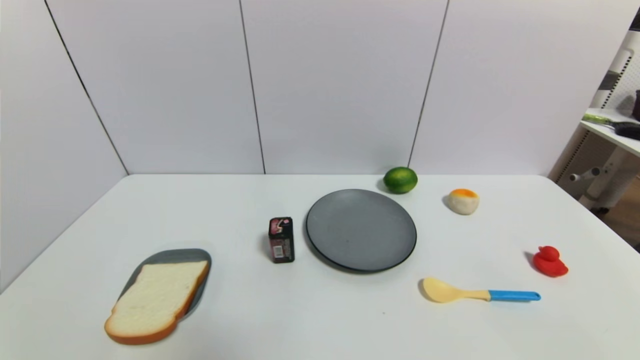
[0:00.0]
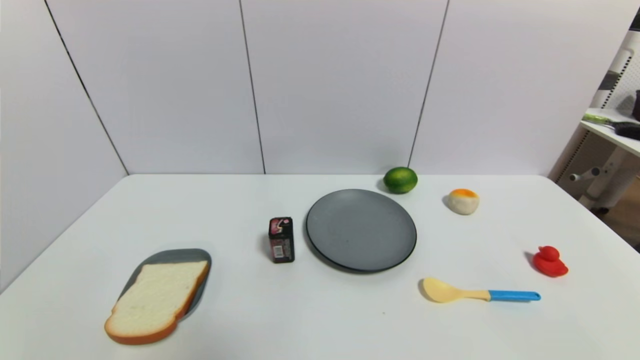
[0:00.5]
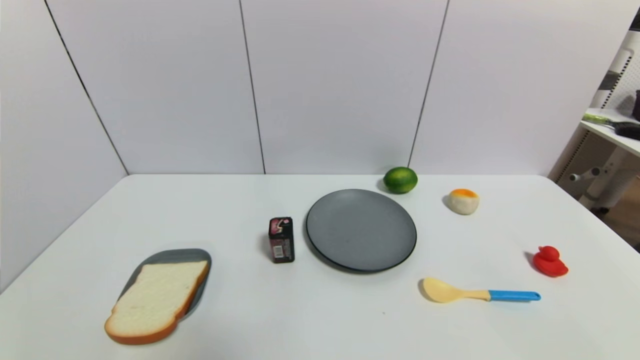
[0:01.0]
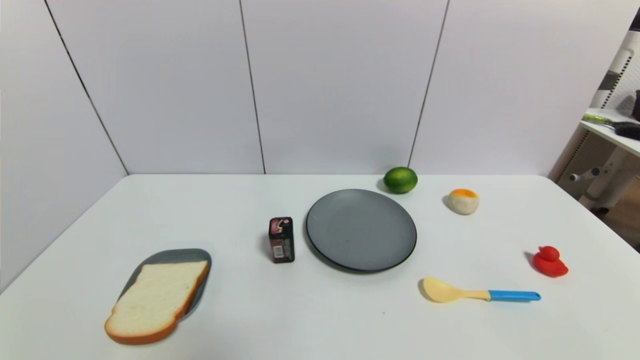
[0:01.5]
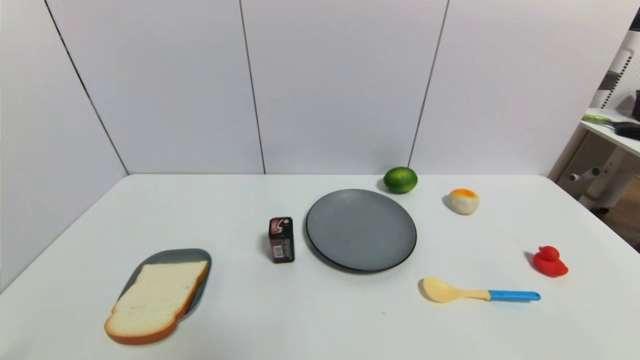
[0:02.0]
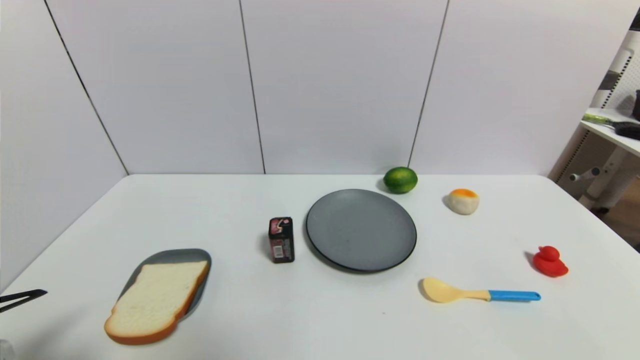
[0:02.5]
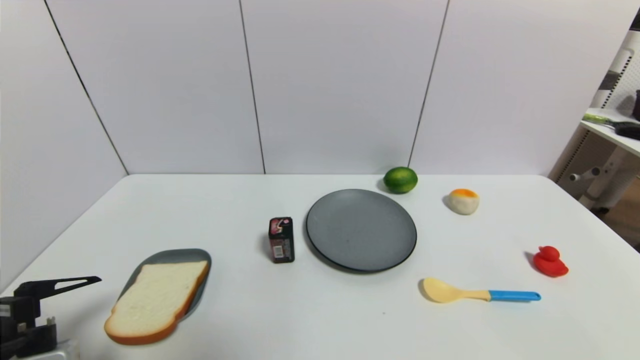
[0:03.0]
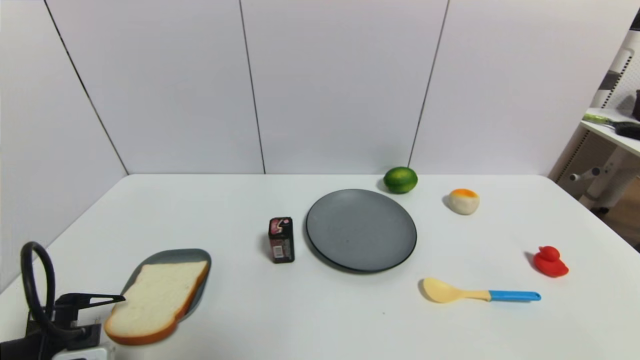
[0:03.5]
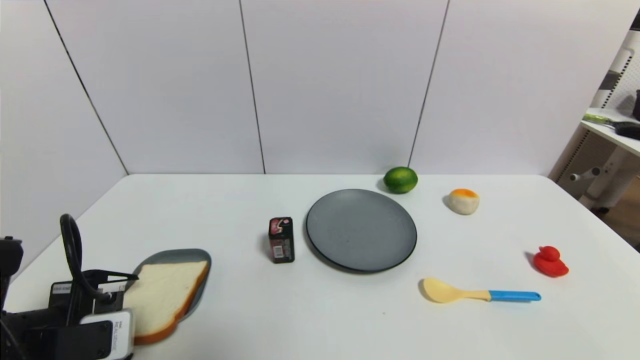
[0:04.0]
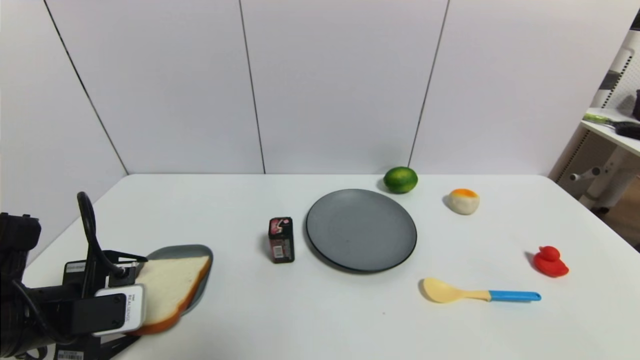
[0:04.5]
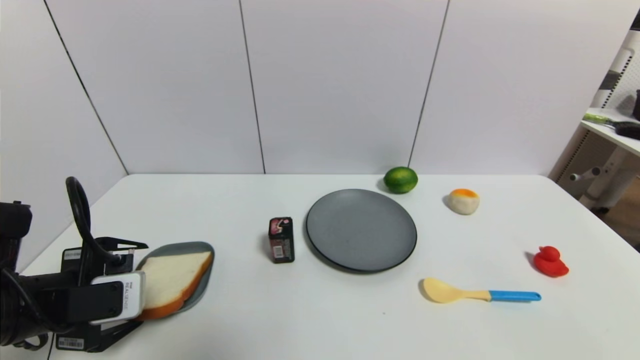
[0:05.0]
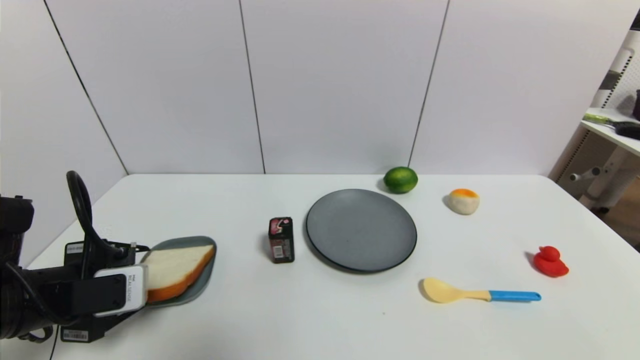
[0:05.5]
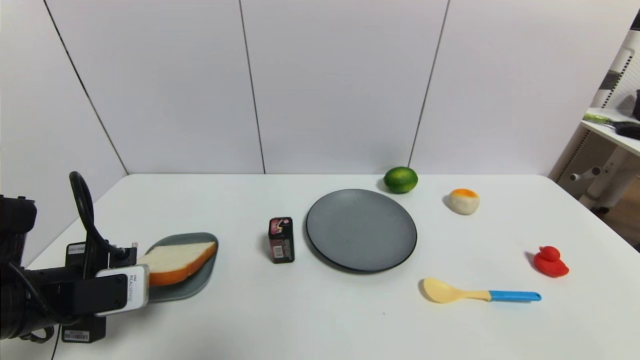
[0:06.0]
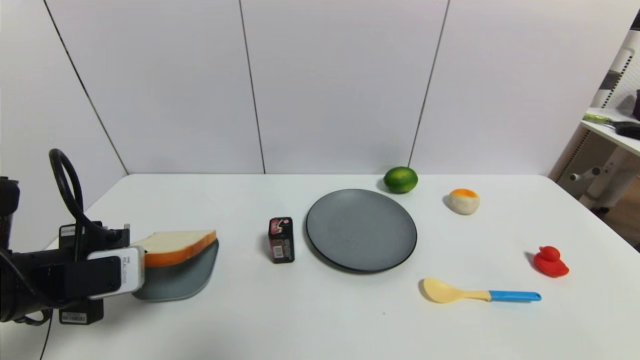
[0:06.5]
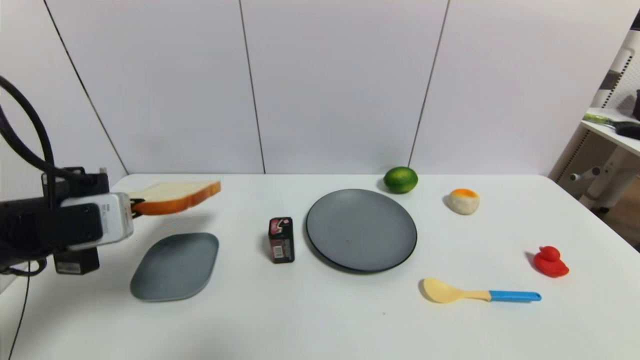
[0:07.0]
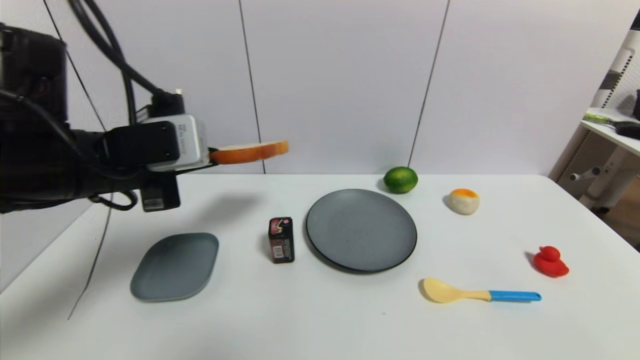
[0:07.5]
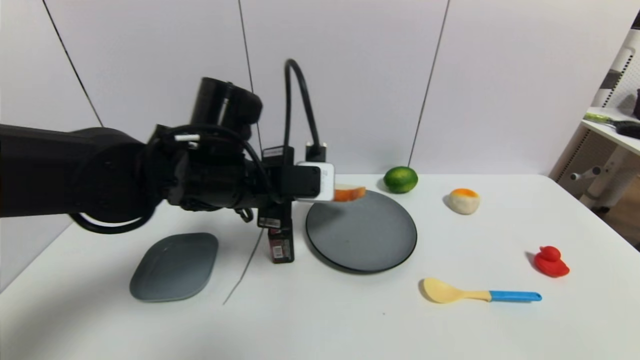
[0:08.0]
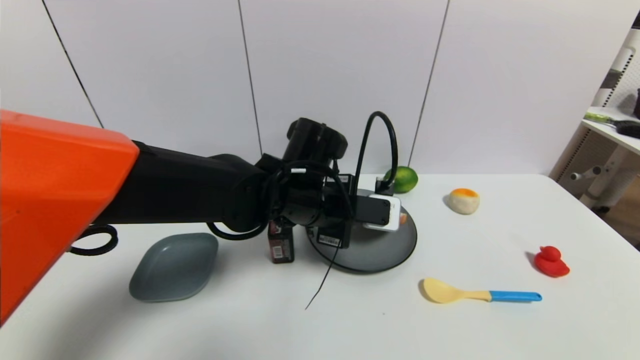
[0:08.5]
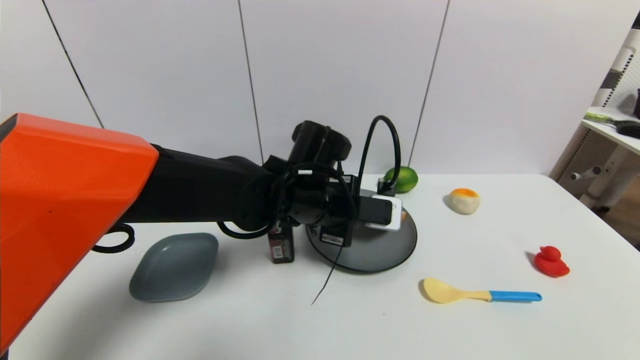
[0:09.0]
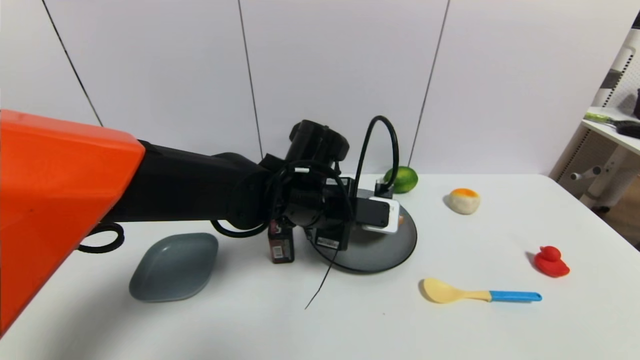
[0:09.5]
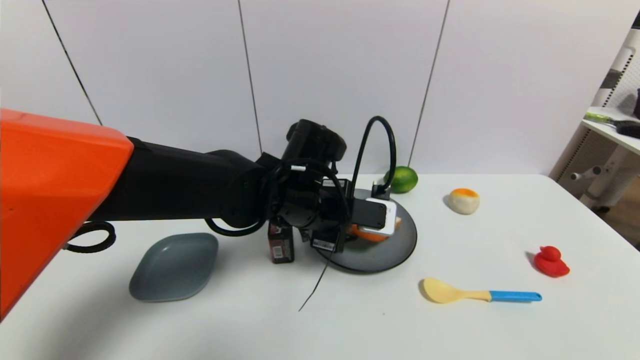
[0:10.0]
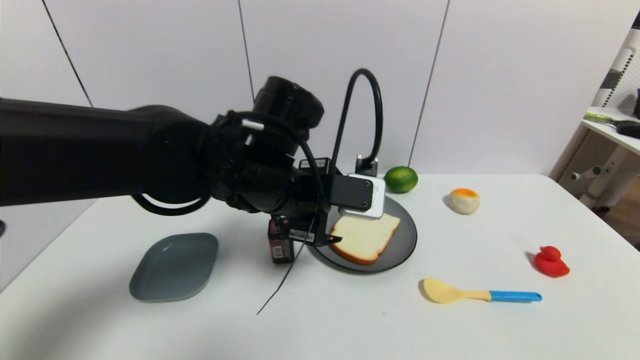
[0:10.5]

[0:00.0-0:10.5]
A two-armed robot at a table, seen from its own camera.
Task of the whole recording: use a gripper to pick the target object and place on the gray plate.
Step, 0:00.0 to 0:06.0: Grasp the bread slice with the left gripper.
Step, 0:06.5 to 0:10.0: Place the bread slice on the gray plate with the left gripper.
0:02.0 to 0:04.0: The left gripper moves forward, about 15 cm.
0:04.0 to 0:06.5: The left gripper changes place by some 5 cm, and closes.
0:06.5 to 0:08.5: The left gripper heads to the right and forward, covering about 30 cm.
0:08.5 to 0:10.5: The left gripper moves upward, some 5 cm, and opens its fingers.

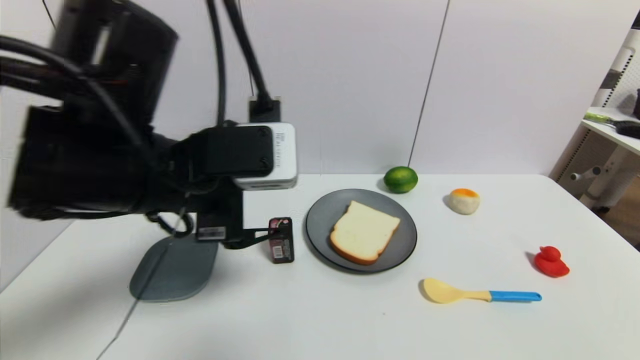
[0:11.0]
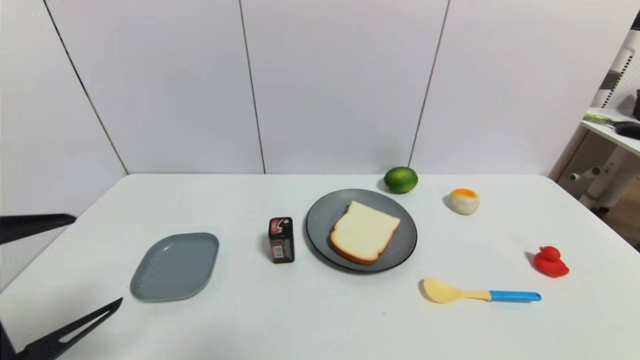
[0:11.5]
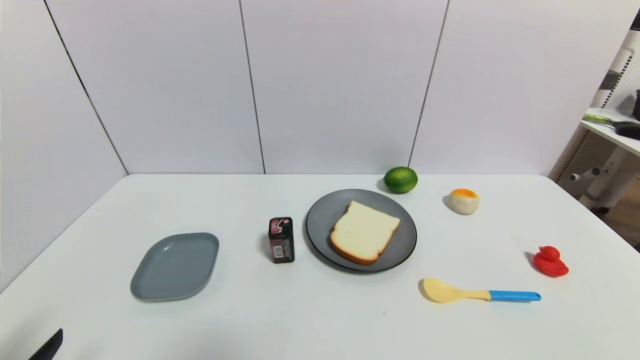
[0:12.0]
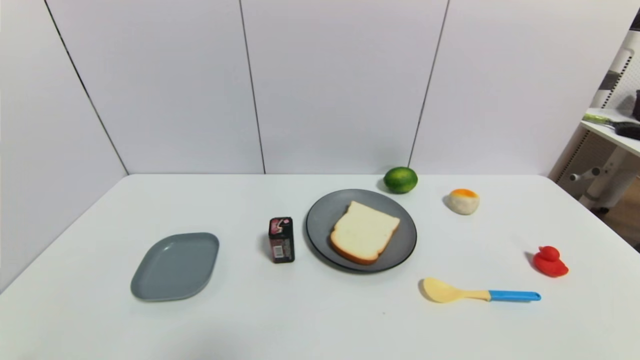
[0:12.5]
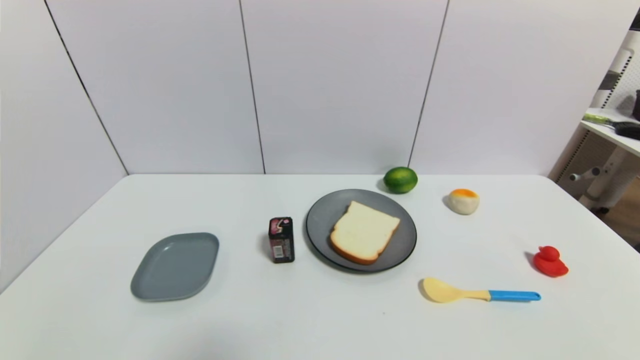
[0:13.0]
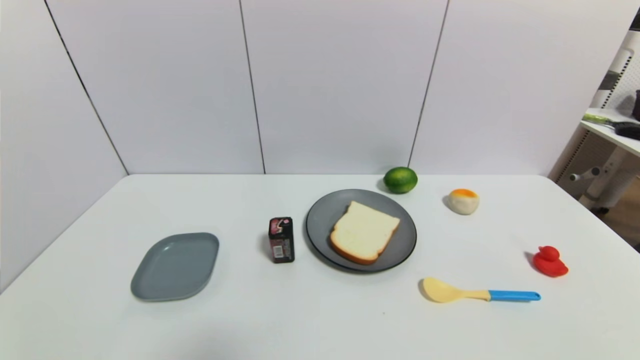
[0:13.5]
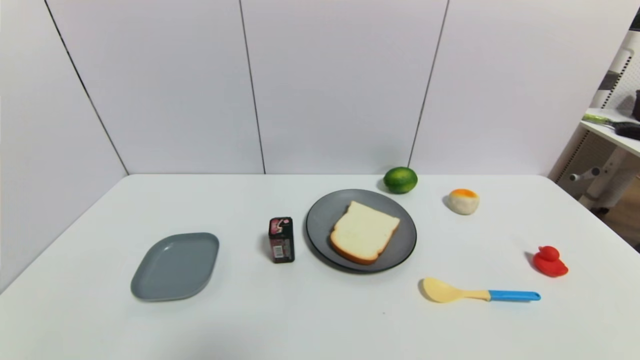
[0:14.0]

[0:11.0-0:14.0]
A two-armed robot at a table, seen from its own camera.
Task of the whole recording: use a gripper to pick the target object and place on the gray plate.
0:11.0 to 0:12.5: The left gripper travels downward, backward and to the left by approximately 35 cm.
